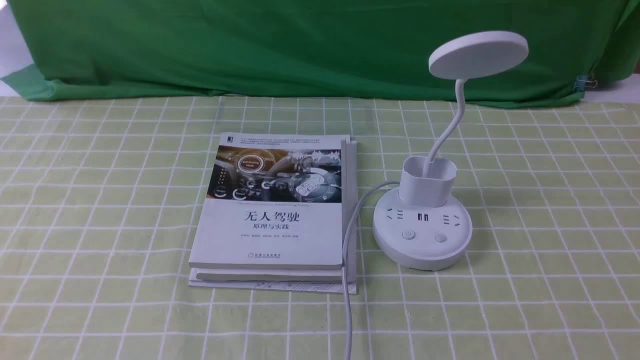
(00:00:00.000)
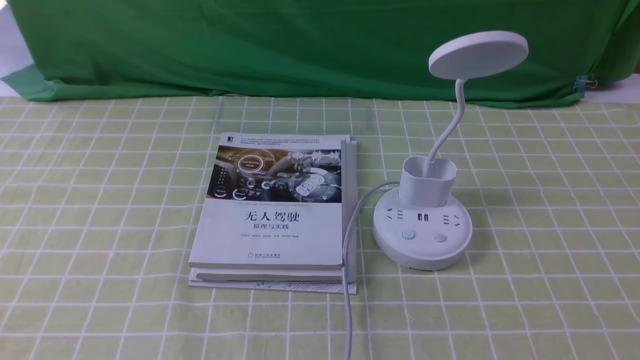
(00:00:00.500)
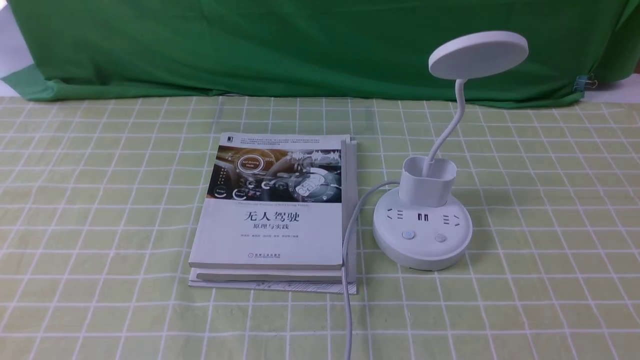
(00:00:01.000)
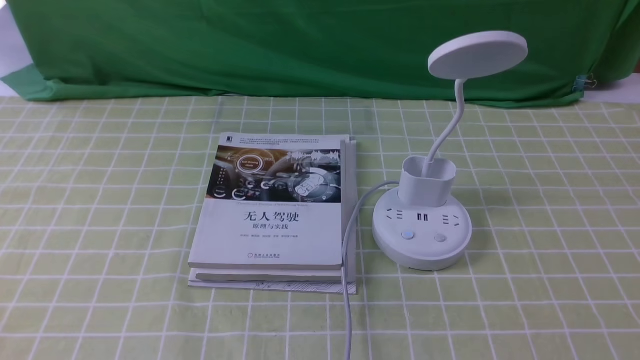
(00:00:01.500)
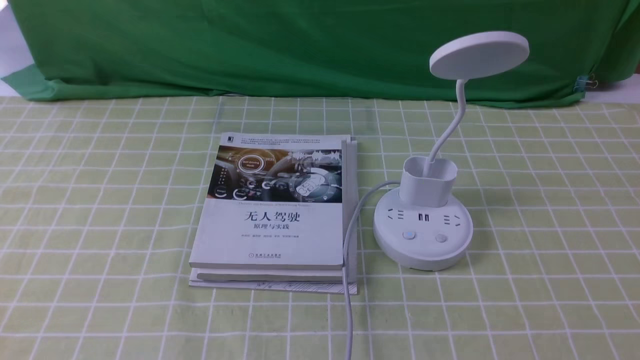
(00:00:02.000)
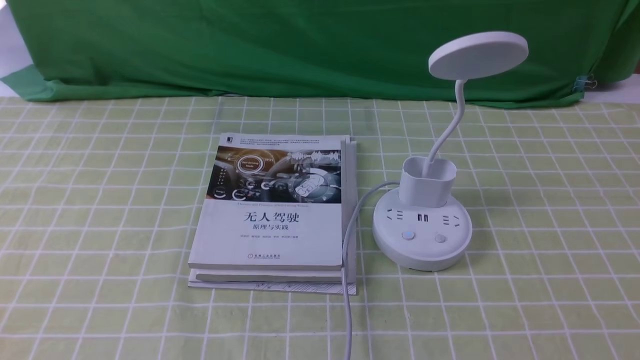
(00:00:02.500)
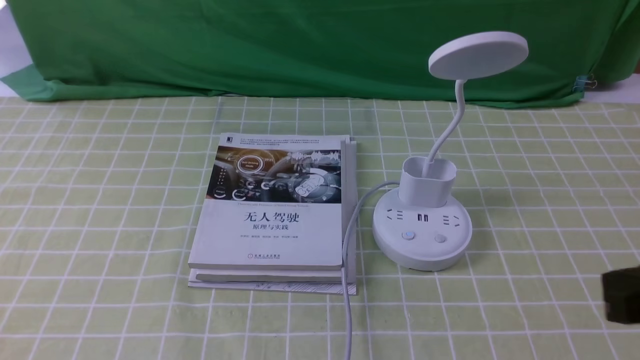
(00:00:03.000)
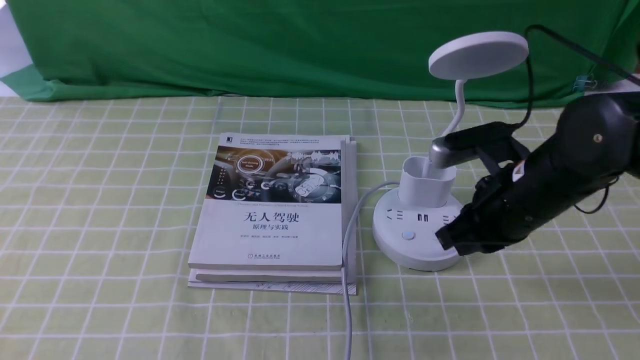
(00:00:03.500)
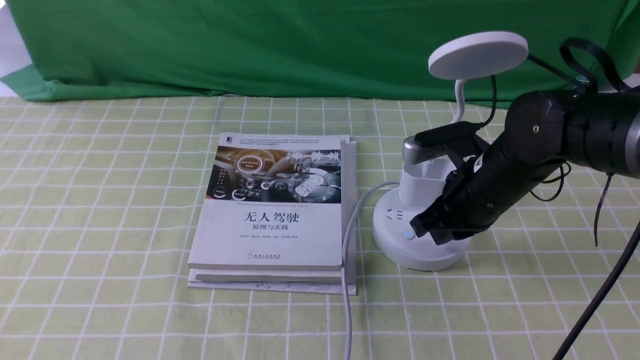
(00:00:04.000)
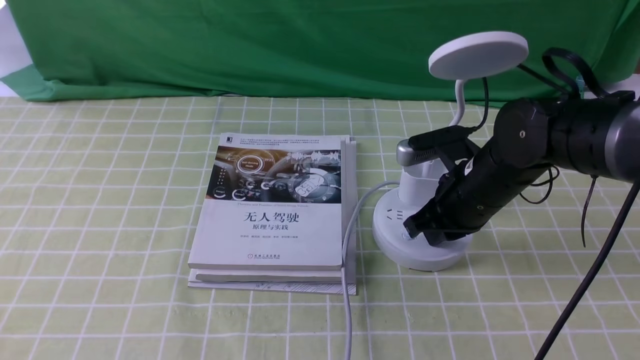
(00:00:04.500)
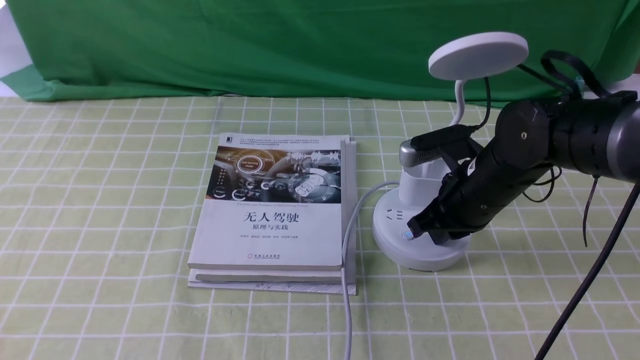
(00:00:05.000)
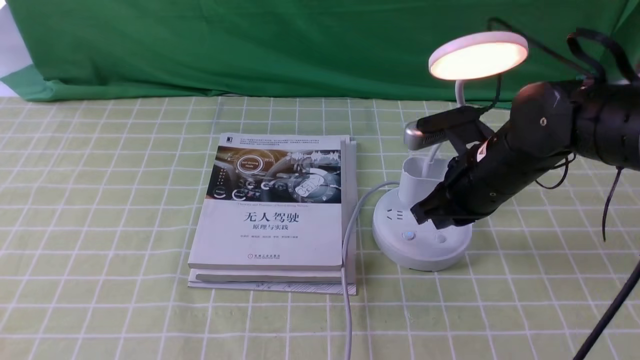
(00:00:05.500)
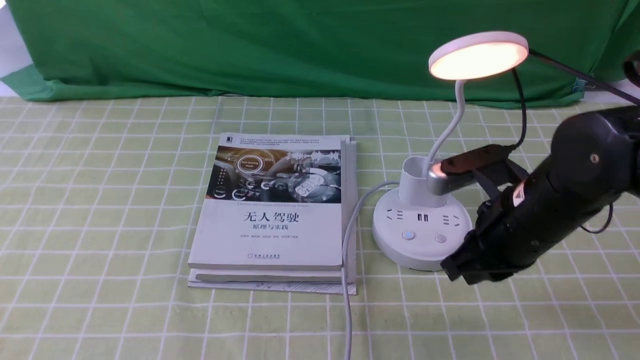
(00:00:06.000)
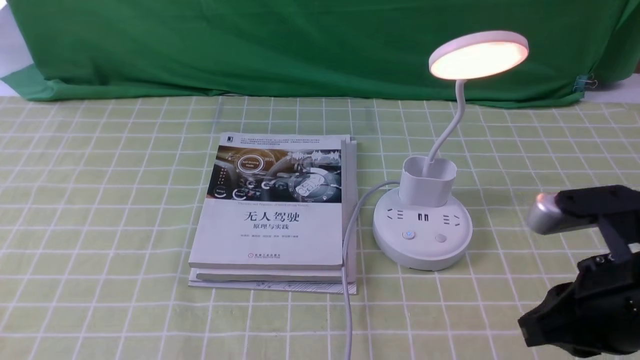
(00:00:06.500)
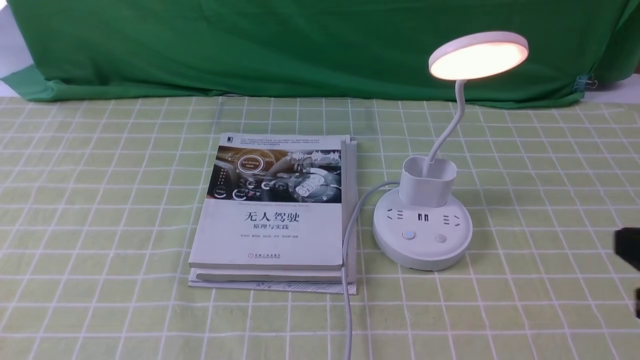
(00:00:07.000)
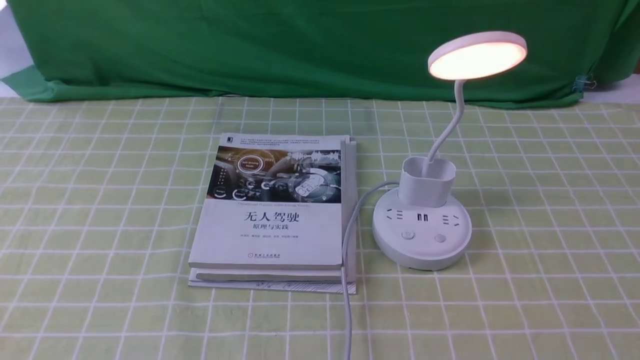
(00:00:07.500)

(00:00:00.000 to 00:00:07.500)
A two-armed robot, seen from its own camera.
Step, 00:00:00.000 - 00:00:04.500: use the right arm to press the button switch on the lamp holder.
00:00:00.000 - 00:00:02.000: The two grippers keep their place.
00:00:02.000 - 00:00:04.000: The right gripper goes roughly 30 cm forward and to the left, and closes.
00:00:04.000 - 00:00:05.500: The grippers stay close to where they were, moving slightly.
00:00:05.500 - 00:00:07.500: The right gripper travels backward and to the right by approximately 30 cm.

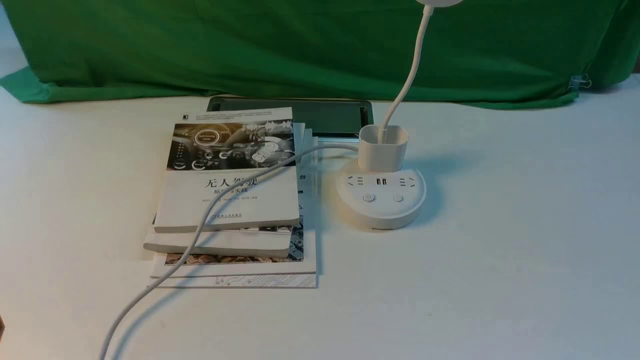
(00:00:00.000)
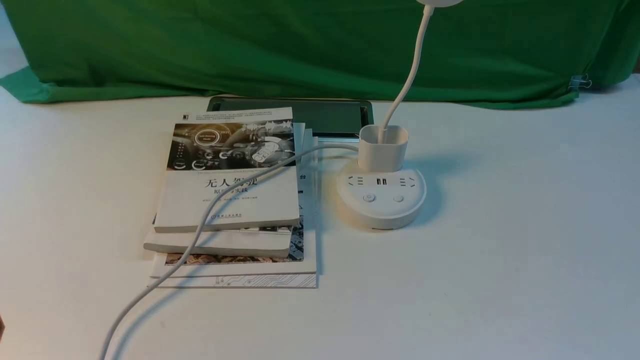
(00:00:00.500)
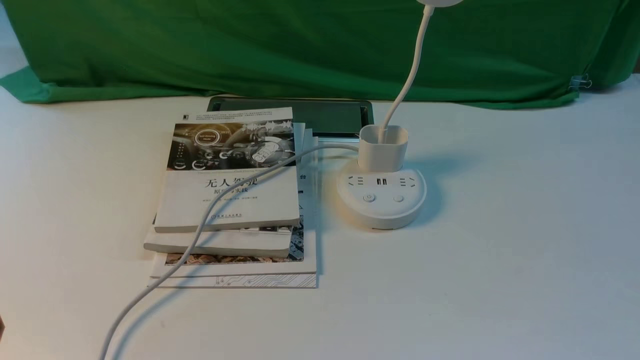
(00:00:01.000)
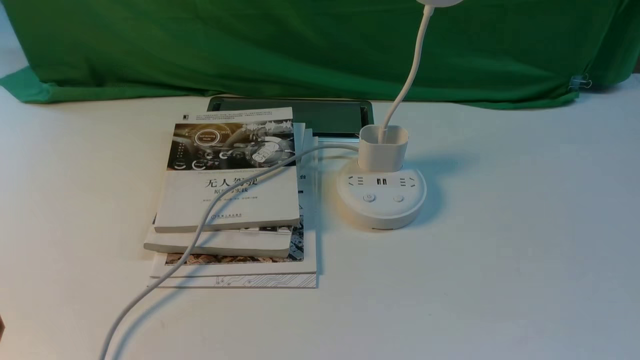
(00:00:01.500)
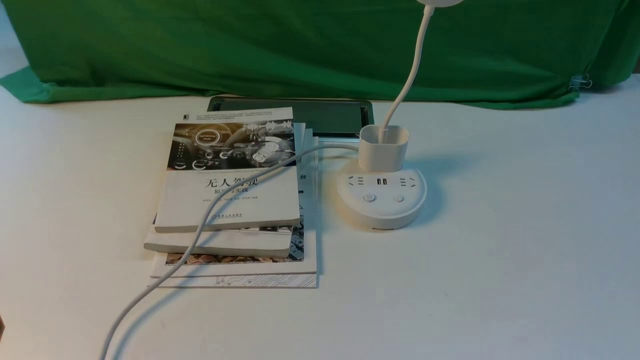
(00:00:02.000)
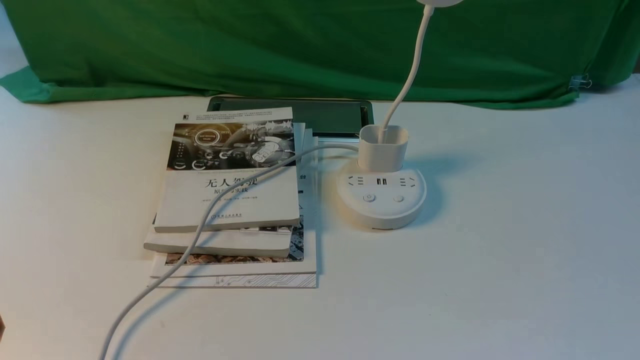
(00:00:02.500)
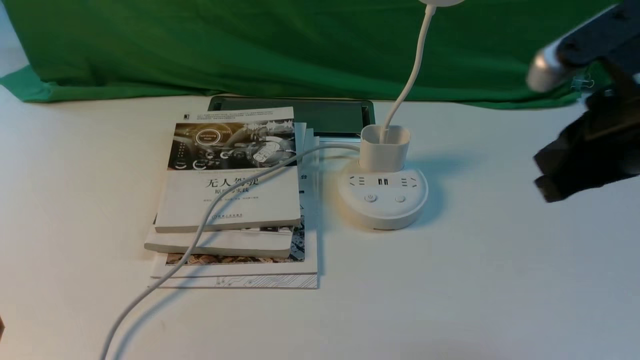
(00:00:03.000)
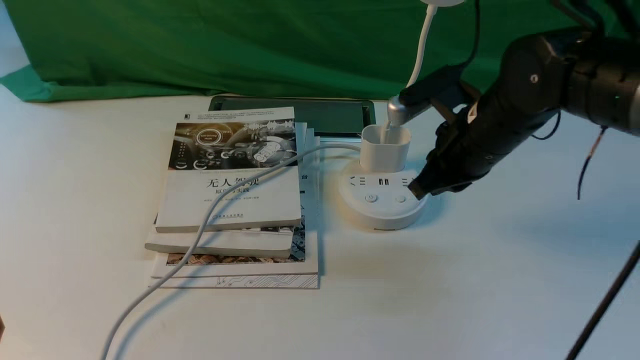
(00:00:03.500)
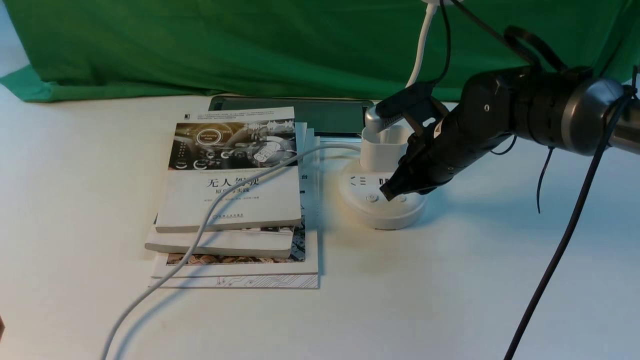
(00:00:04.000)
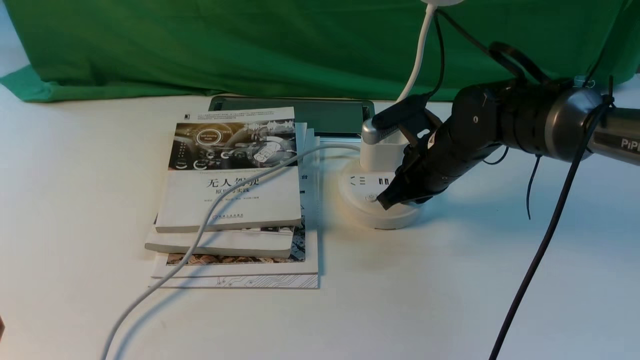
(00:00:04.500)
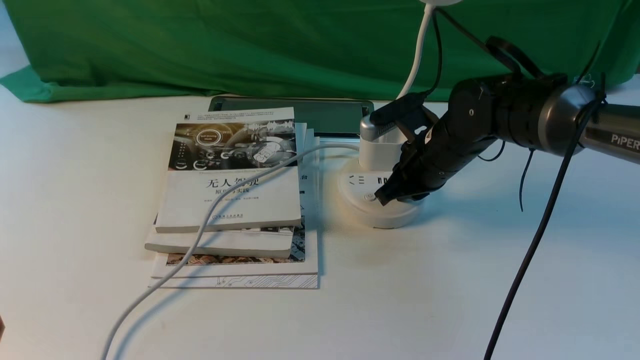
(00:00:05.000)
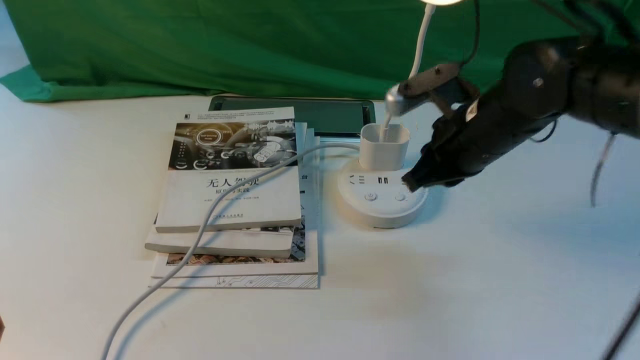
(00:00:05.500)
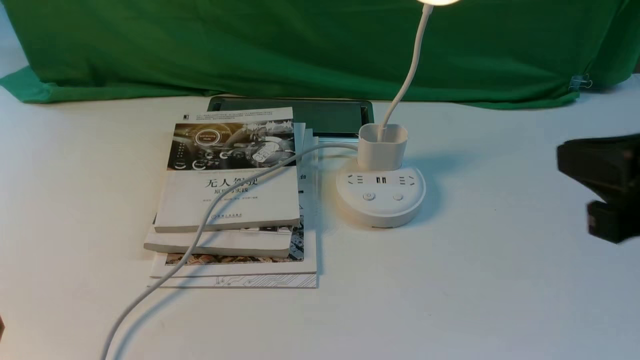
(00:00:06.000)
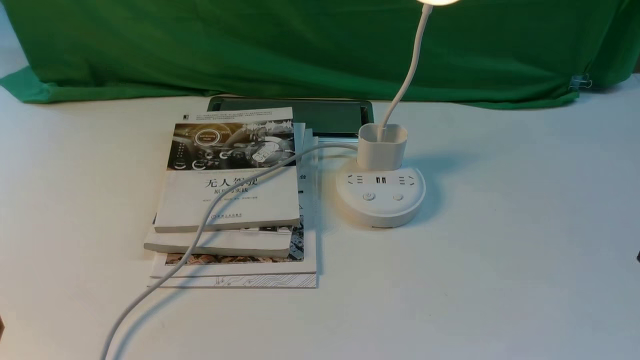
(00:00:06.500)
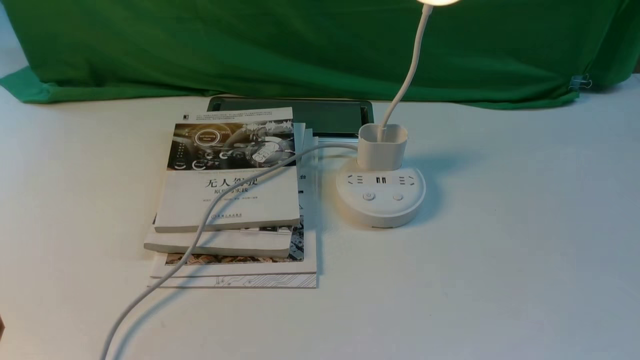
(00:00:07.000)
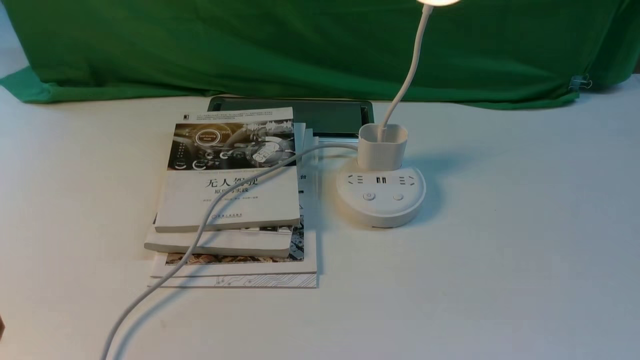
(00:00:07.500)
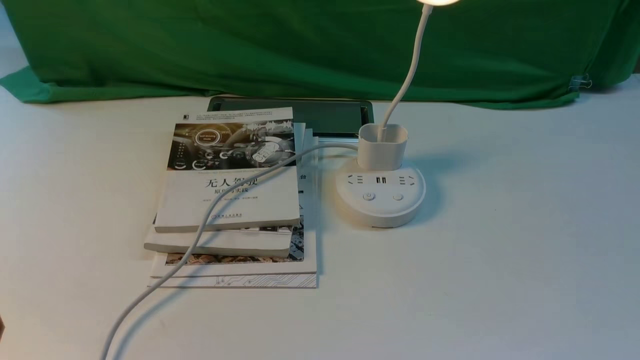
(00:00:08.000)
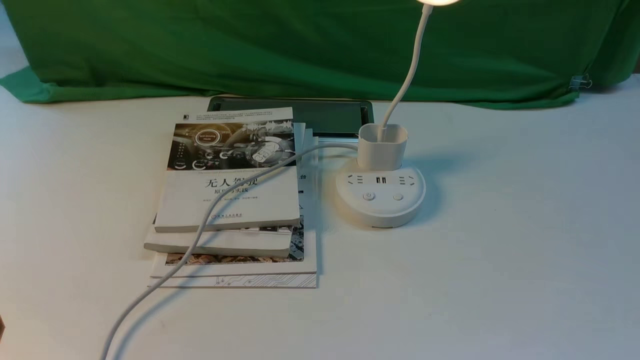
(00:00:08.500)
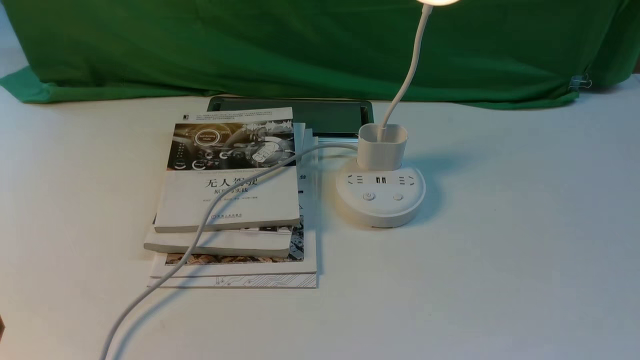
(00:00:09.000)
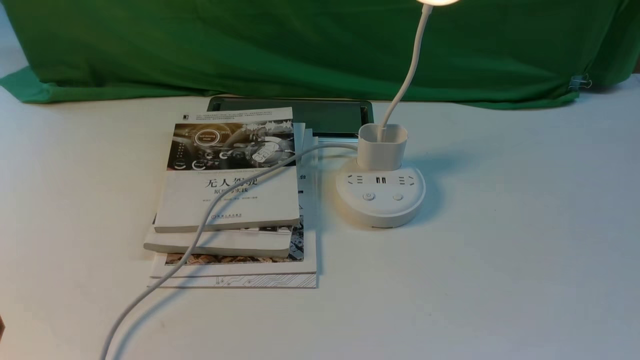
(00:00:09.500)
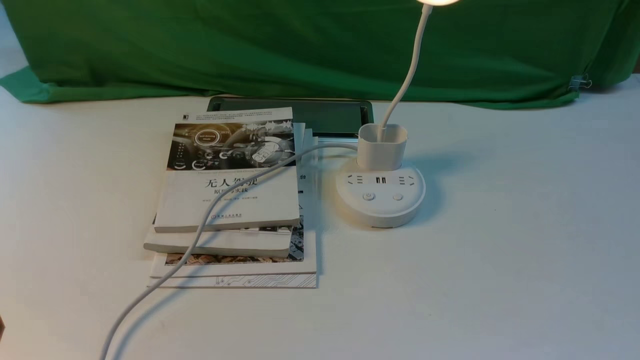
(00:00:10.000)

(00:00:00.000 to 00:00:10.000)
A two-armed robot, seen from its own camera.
Step, 00:00:00.000 - 00:00:05.500: use the right arm to press the button switch on the lamp holder.
00:00:02.000 - 00:00:04.000: The right gripper travels forward and to the left by some 40 cm, and closes up.
00:00:04.000 - 00:00:06.000: The right gripper shifts some 30 cm backward, upward and to the right.
00:00:06.000 - 00:00:08.000: The right gripper is displaced downward, backward and to the right by approximately 20 cm, and opens.
00:00:08.000 - 00:00:10.000: The two grippers keep their place.
